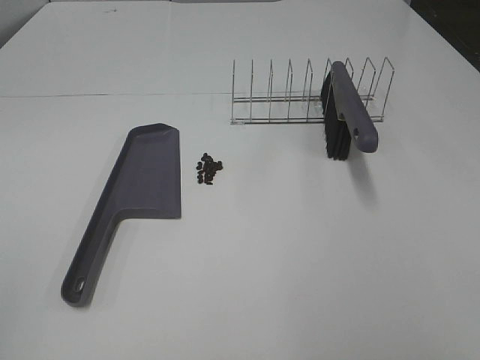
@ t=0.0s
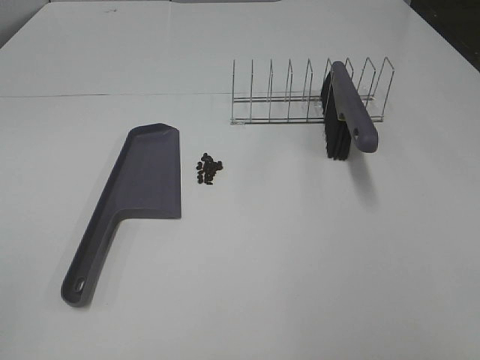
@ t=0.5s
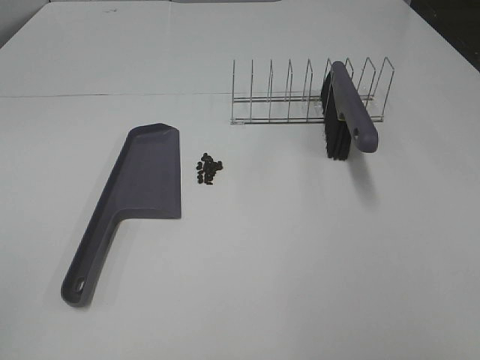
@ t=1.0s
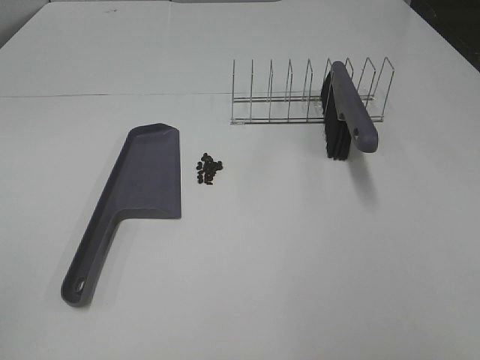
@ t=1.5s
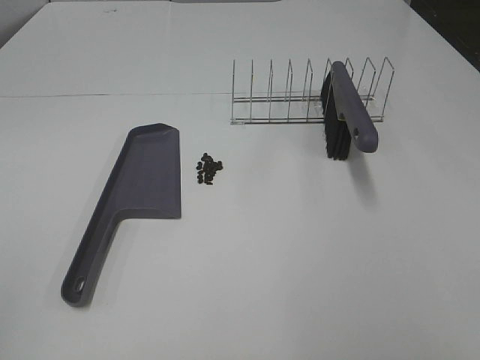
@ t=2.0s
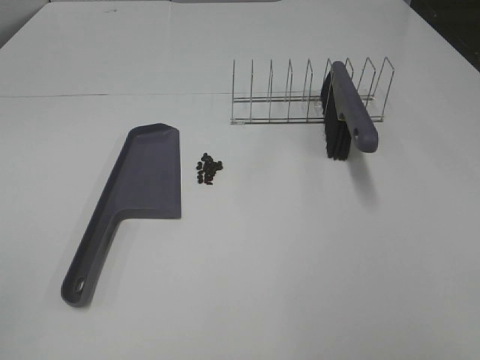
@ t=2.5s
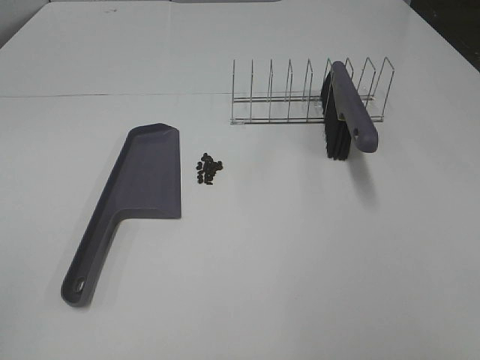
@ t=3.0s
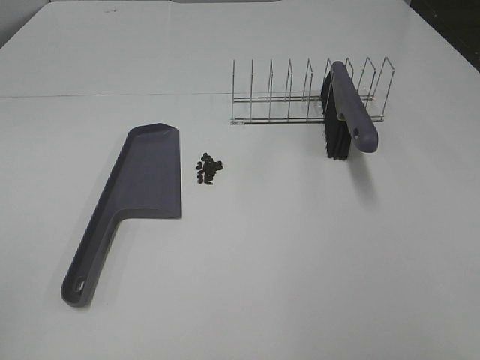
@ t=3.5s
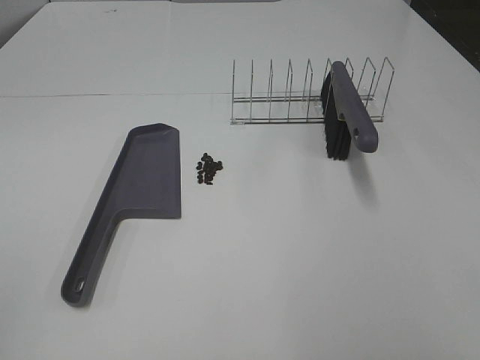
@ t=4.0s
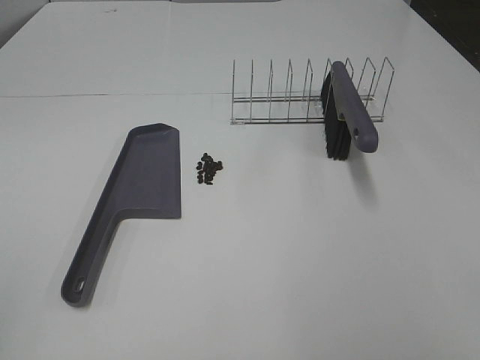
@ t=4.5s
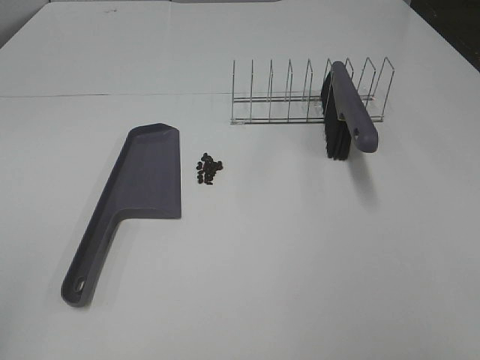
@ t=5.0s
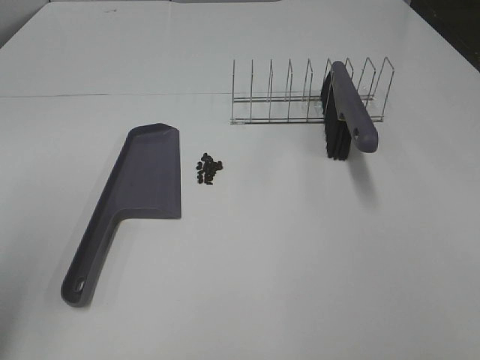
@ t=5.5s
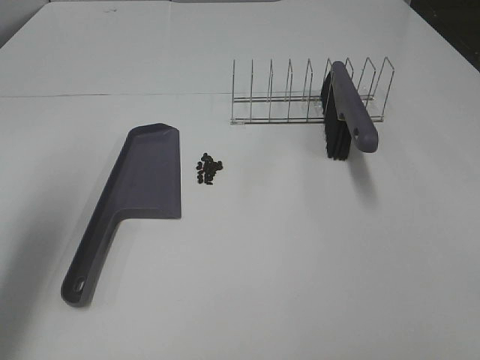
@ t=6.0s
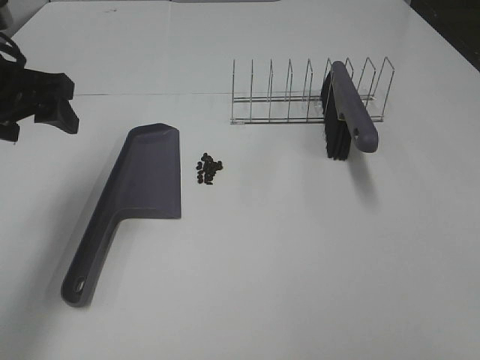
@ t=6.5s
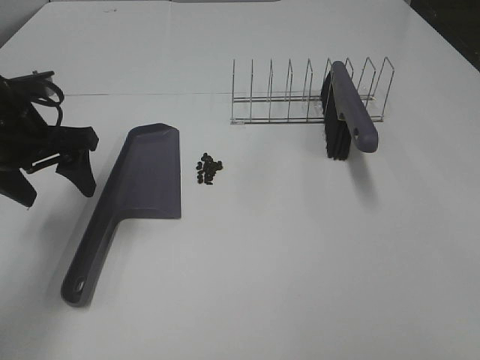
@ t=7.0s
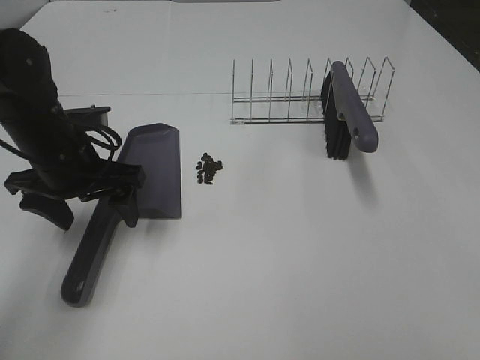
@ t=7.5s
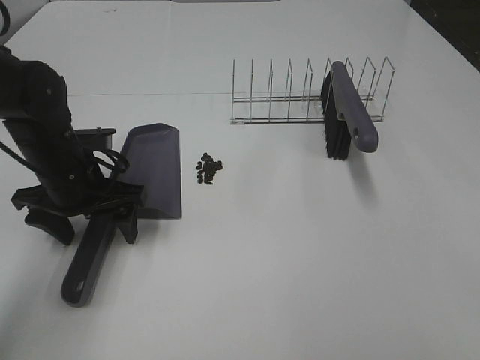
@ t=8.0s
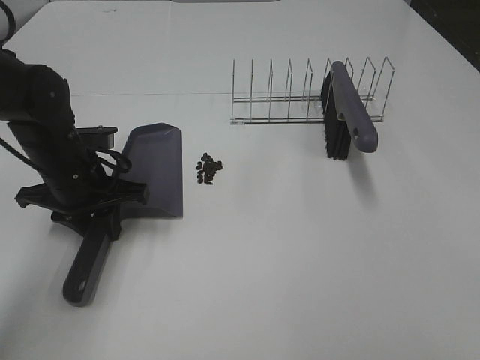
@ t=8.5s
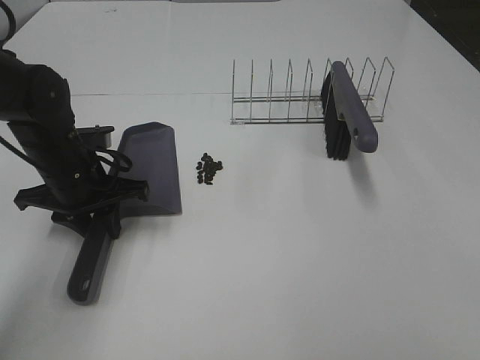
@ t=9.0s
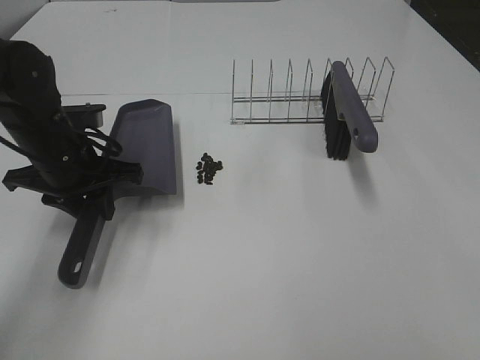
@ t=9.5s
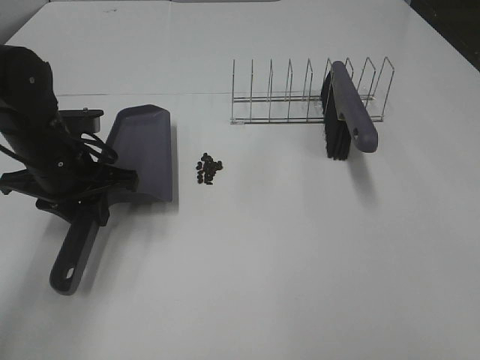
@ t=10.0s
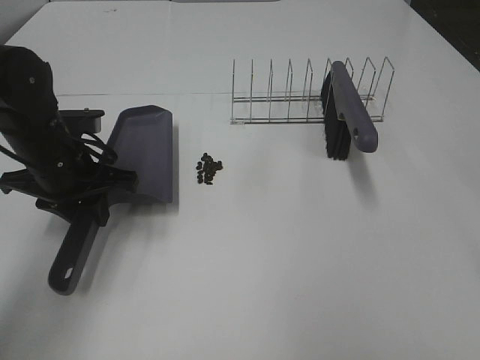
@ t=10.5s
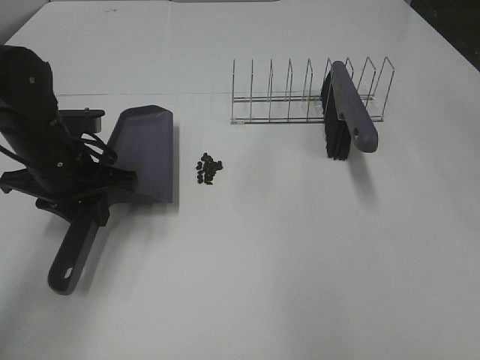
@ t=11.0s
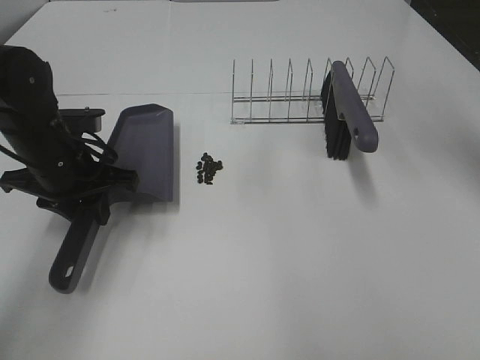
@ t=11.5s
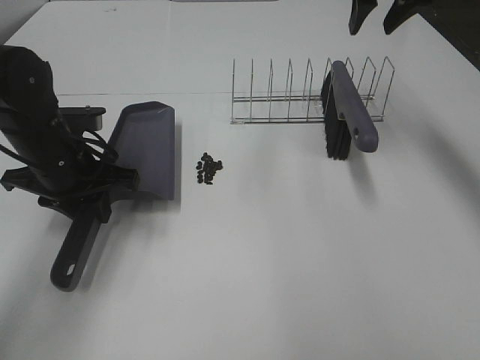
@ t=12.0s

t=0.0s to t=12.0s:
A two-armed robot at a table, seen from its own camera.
Task of the whole recording: Sweep Coffee Bean.
Step, t=0.0s to t=8.5s: Left hand: grab the dustpan.
t=0.0s to t=4.0s: The two grippers keep their place.
t=4.0s to t=6.0s: The left gripper moves forward, roughly 25 cm.
t=6.0s to t=8.0s: The left gripper heads downward, to the right and forward, covering approximately 20 cm.
t=8.0s to t=10.0s: The left gripper closes.
t=10.0s to t=12.0s: The right gripper heads forward, covering about 50 cm, and closes up.

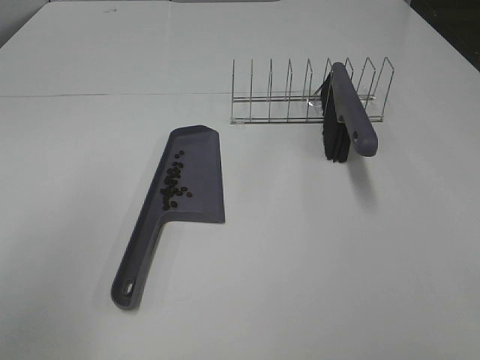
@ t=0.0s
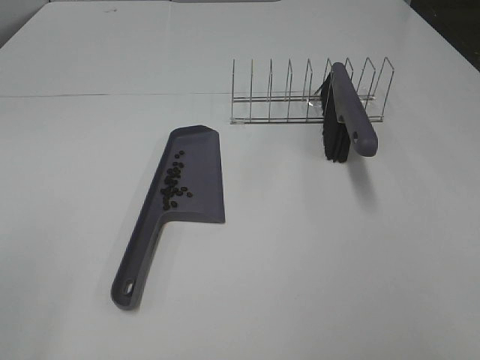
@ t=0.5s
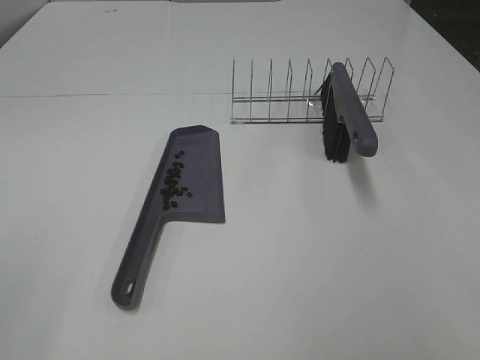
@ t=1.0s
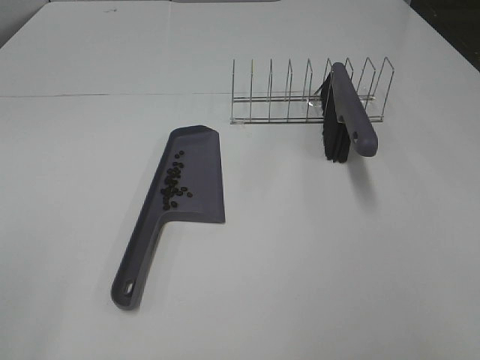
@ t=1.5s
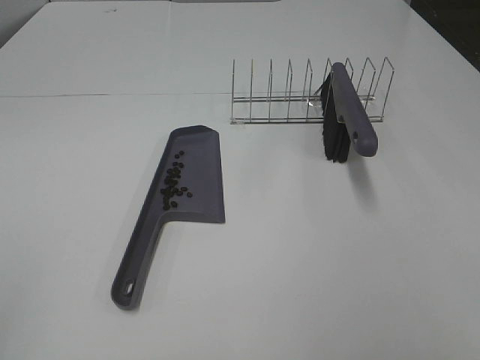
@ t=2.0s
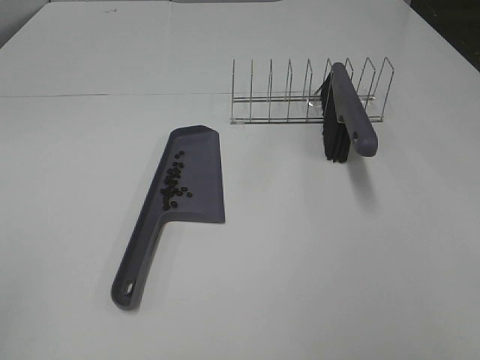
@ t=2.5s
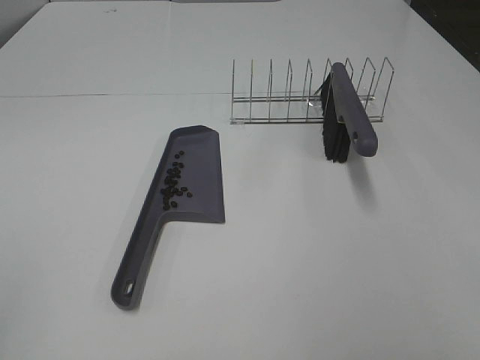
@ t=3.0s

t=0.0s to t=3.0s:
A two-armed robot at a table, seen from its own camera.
Task of the whole recording: Sweep Coffee Bean.
t=0.0s to t=1.5s: The left gripper travels backward and to the left by roughly 10 cm.

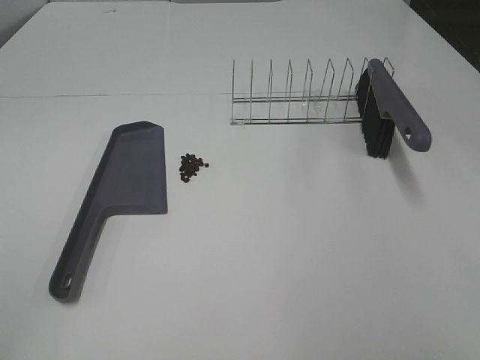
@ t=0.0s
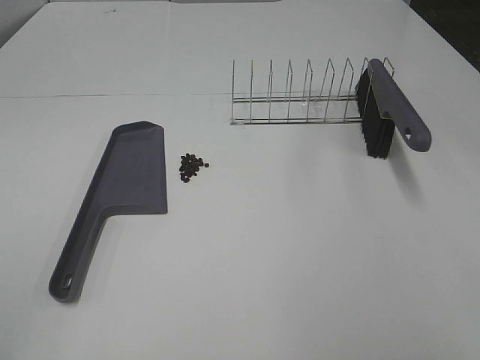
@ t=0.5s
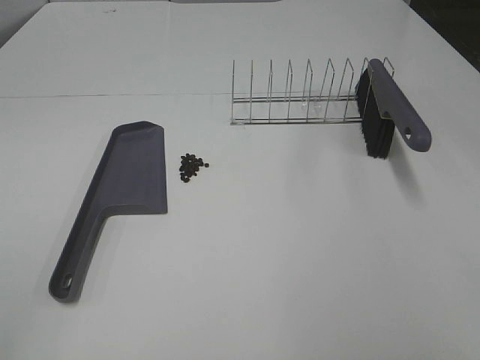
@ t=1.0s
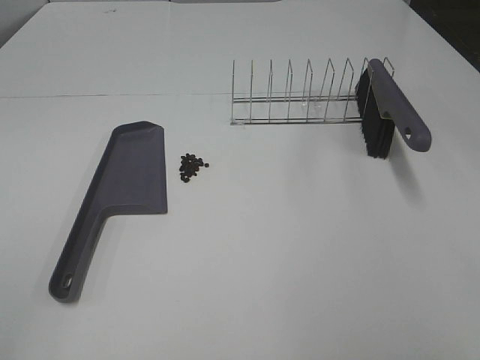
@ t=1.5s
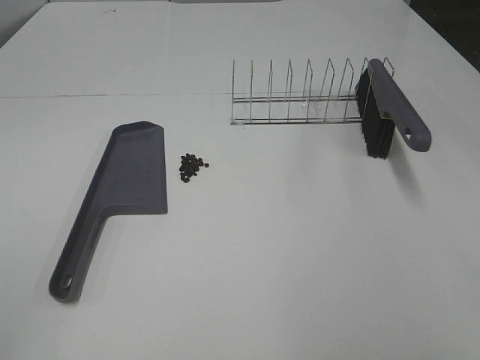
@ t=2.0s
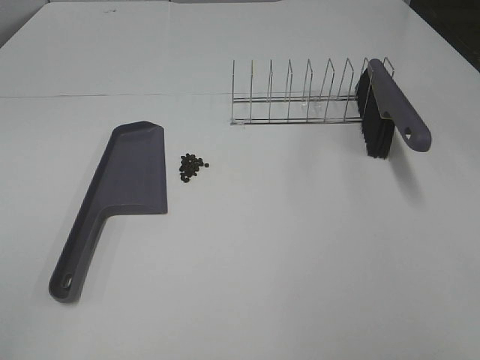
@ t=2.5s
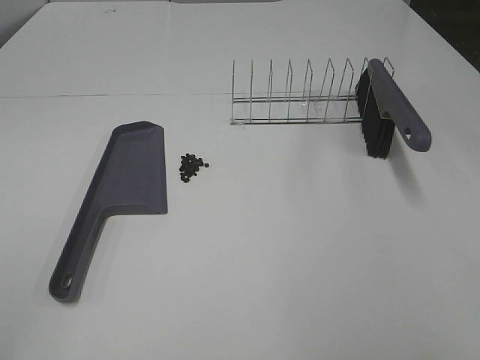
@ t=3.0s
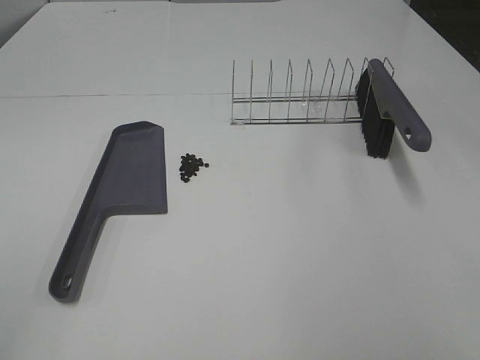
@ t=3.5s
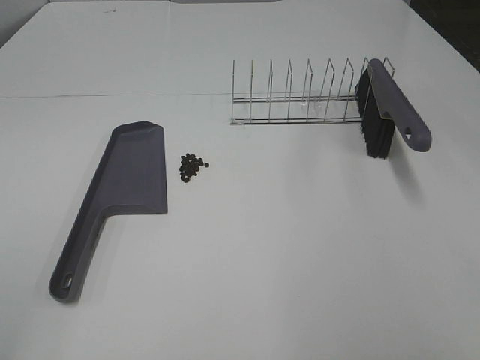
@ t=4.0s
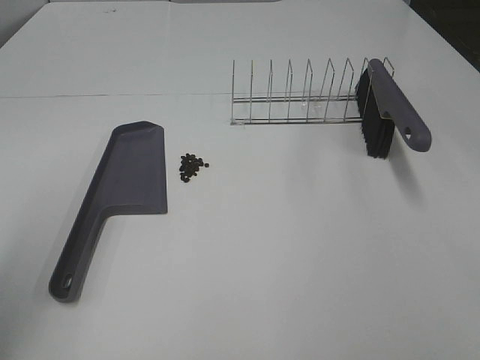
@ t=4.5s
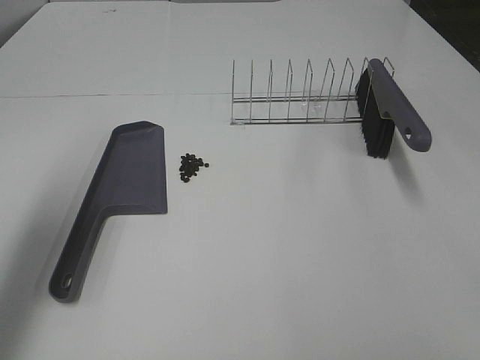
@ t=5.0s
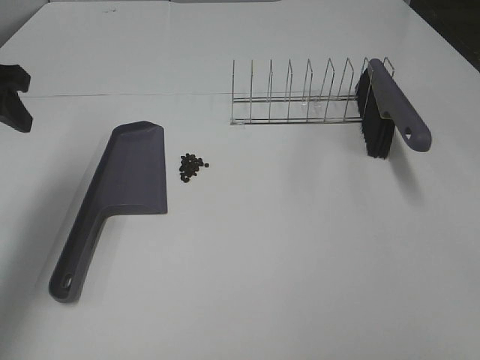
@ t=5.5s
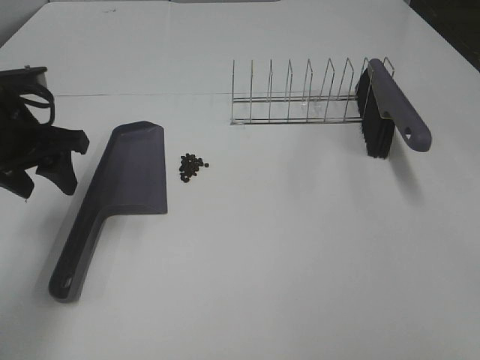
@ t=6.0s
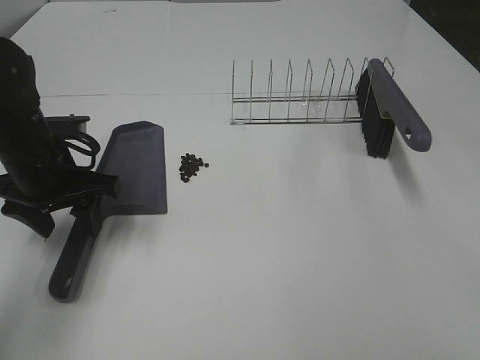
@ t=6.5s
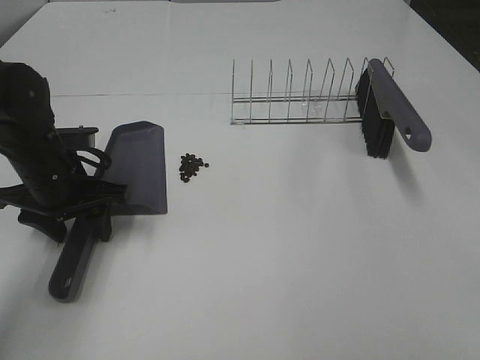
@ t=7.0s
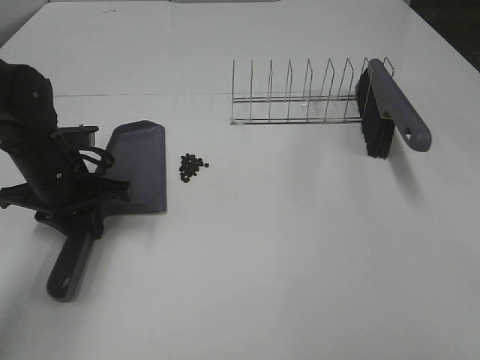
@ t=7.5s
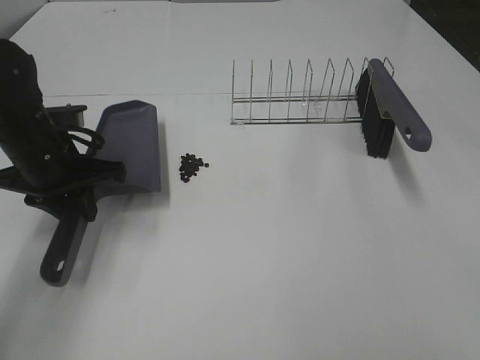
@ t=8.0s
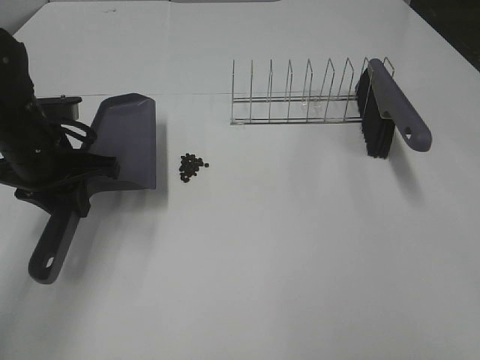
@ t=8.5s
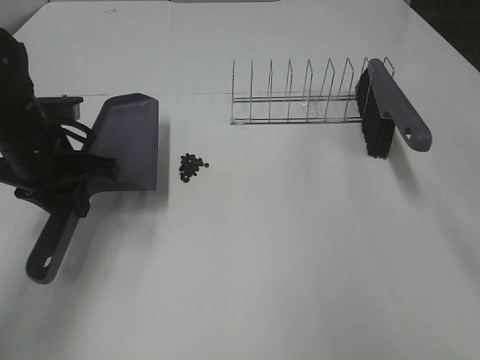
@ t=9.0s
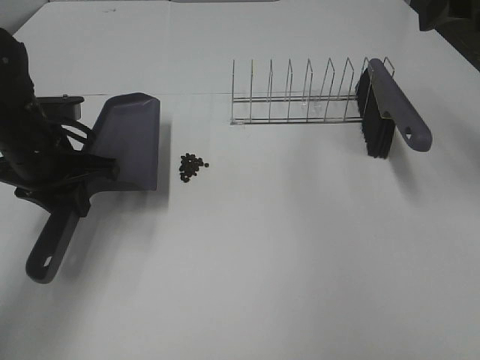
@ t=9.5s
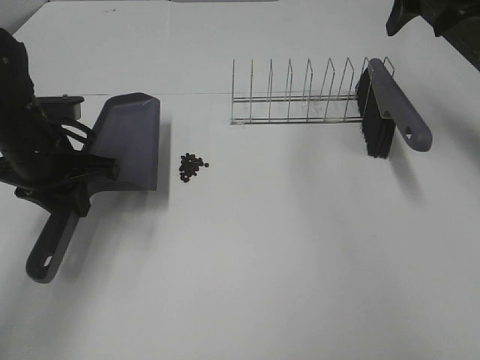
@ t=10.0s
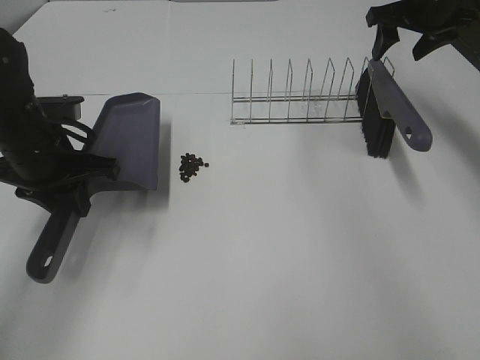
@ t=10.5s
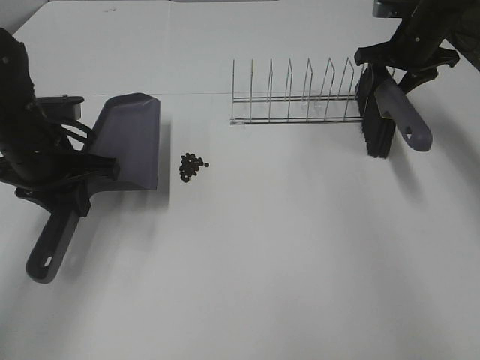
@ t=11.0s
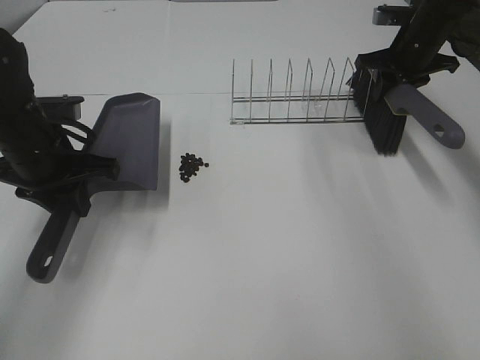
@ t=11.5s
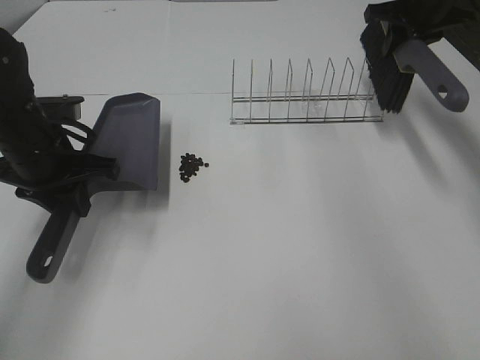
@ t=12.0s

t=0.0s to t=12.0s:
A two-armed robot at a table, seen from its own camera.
Task of the whole recording: Sweep Coffee Bean.
Step, t=0.0s to t=7.5s: Left hand: grab the dustpan.
Step, t=8.5s to t=11.5s: Right hand:grab the broom.
t=0.0s to t=4.0s: Neither gripper changes place.
t=4.0s to t=6.0s: The left gripper travels forward by about 35 cm.
t=6.0s to t=8.0s: The left gripper closes its fingers.
t=8.0s to t=10.0s: The right gripper shifts some 50 cm forward.
t=10.0s to t=12.0s: The right gripper shifts about 5 cm forward, and closes.
